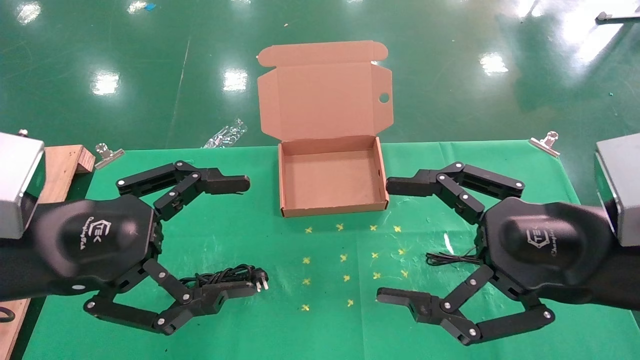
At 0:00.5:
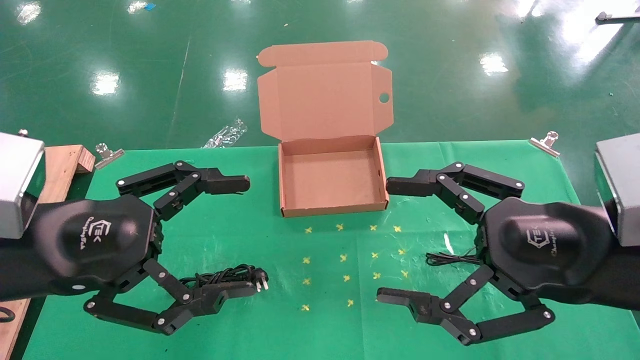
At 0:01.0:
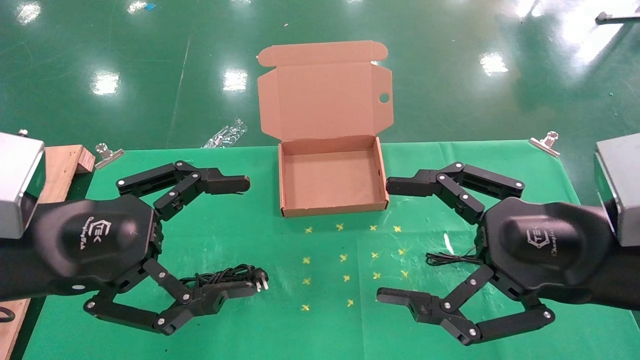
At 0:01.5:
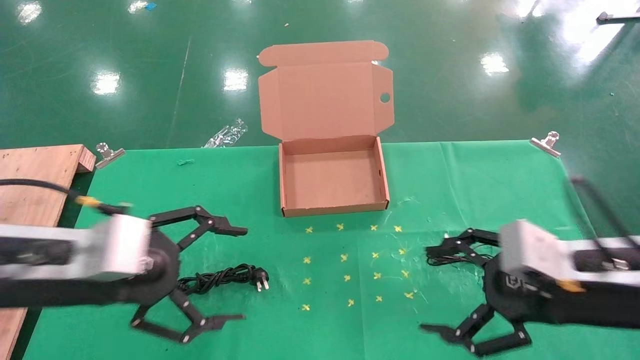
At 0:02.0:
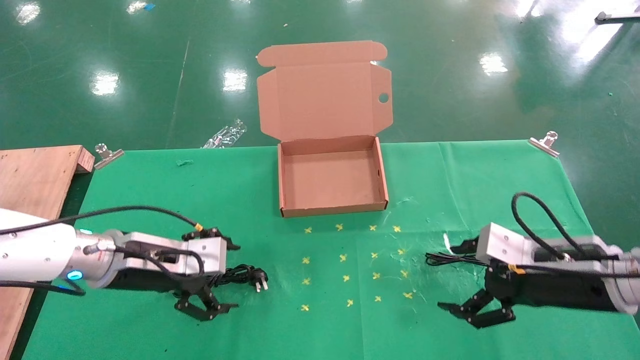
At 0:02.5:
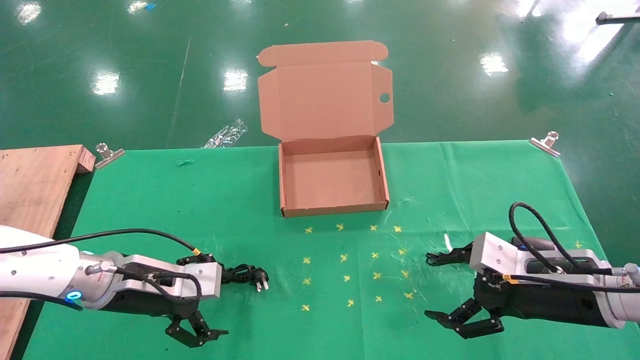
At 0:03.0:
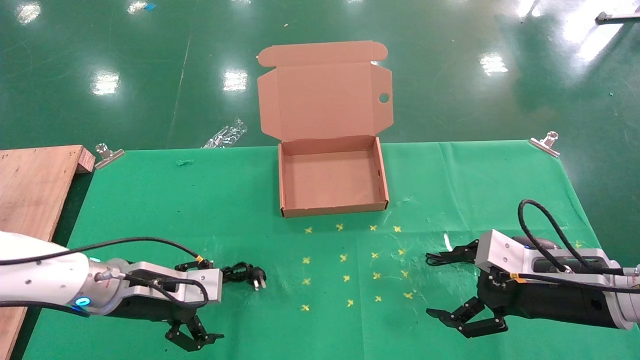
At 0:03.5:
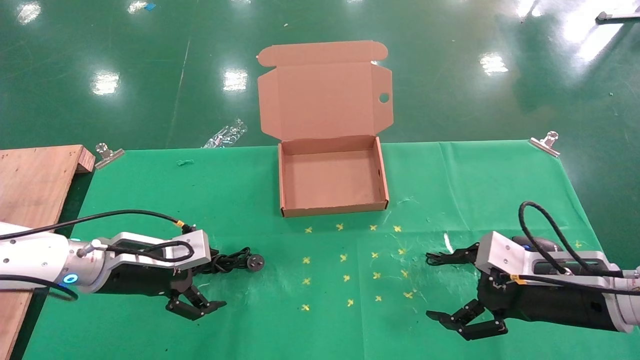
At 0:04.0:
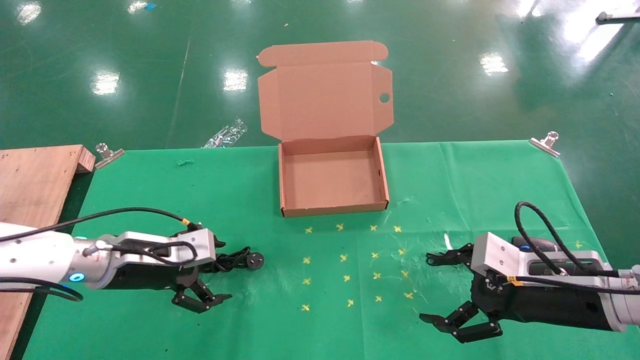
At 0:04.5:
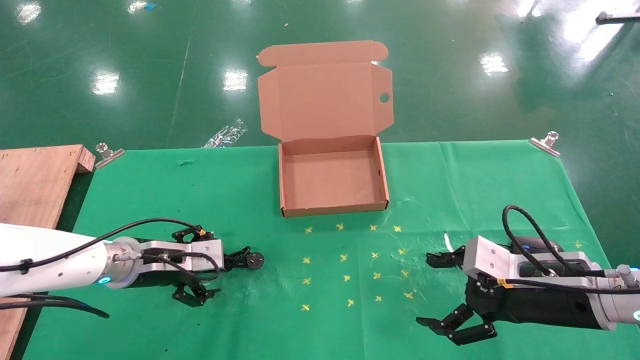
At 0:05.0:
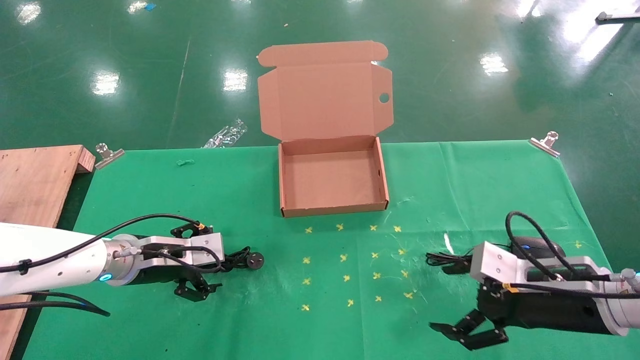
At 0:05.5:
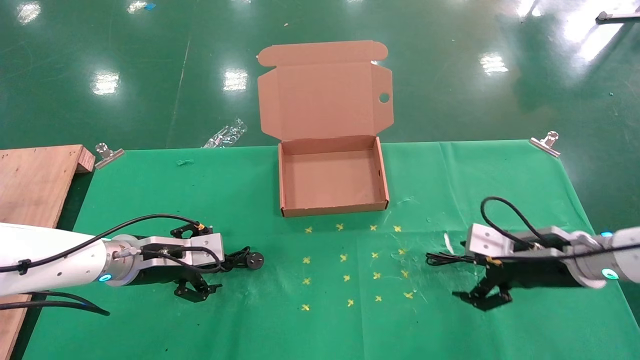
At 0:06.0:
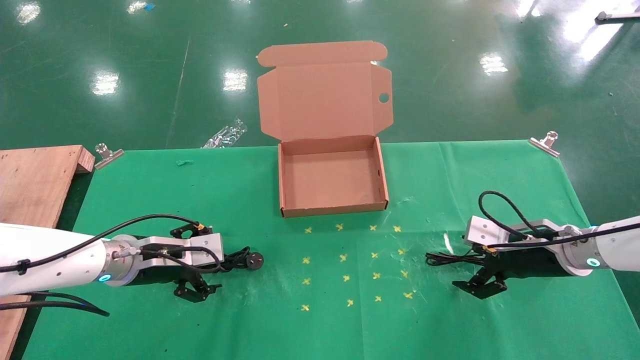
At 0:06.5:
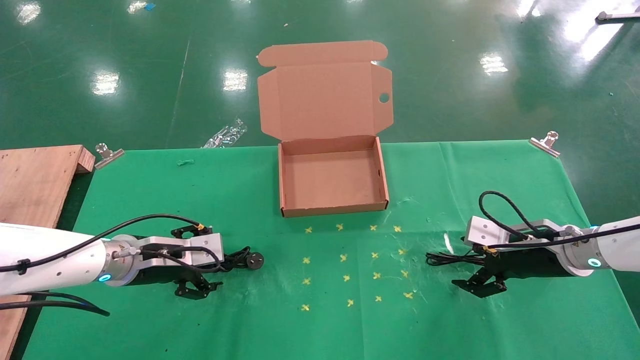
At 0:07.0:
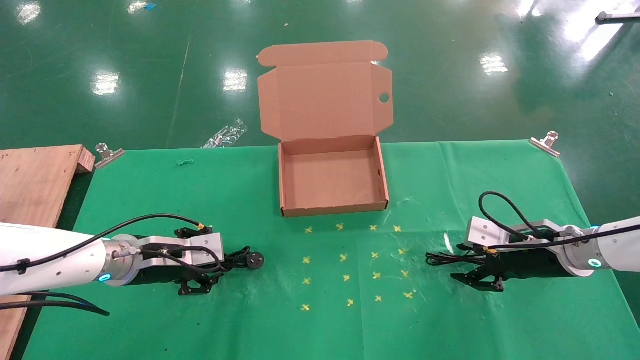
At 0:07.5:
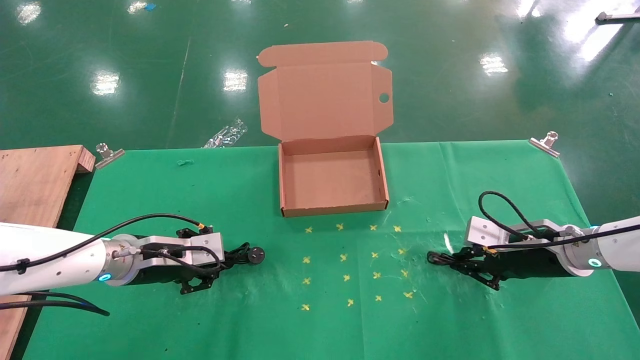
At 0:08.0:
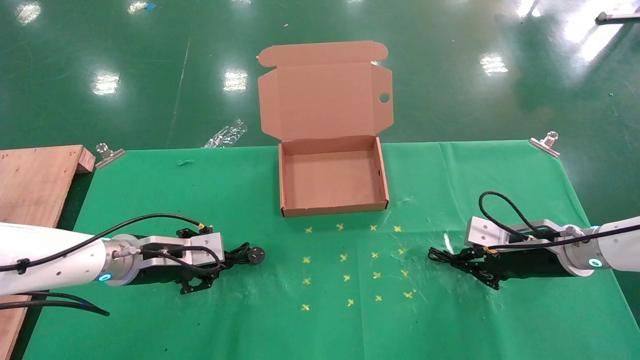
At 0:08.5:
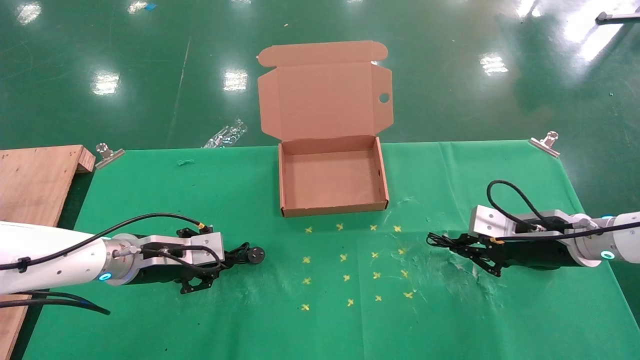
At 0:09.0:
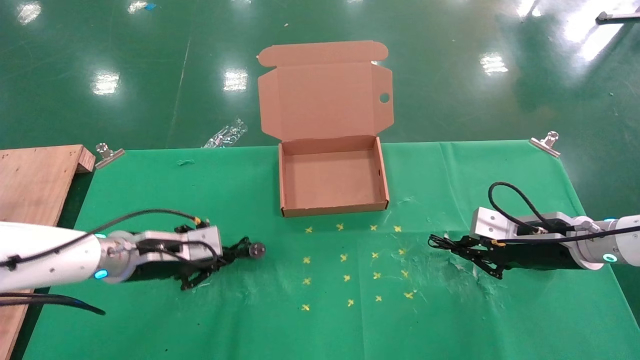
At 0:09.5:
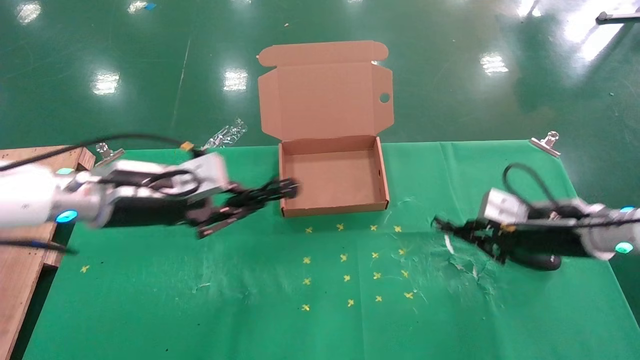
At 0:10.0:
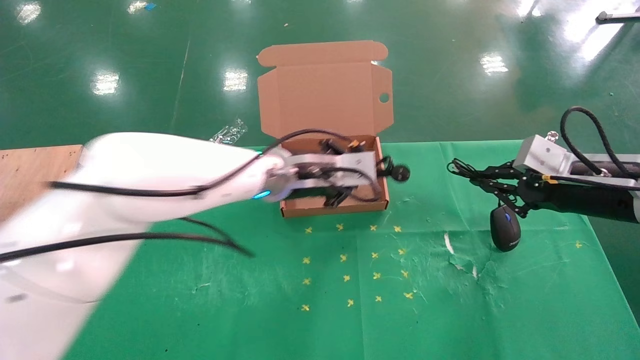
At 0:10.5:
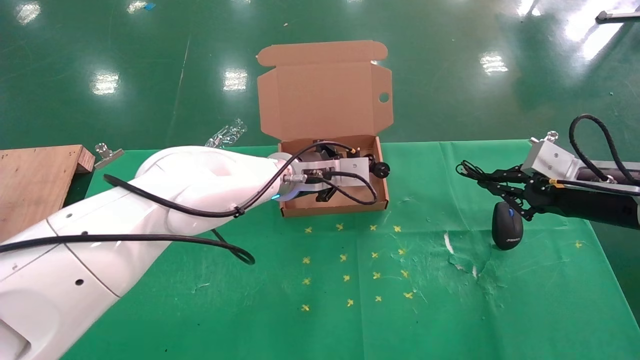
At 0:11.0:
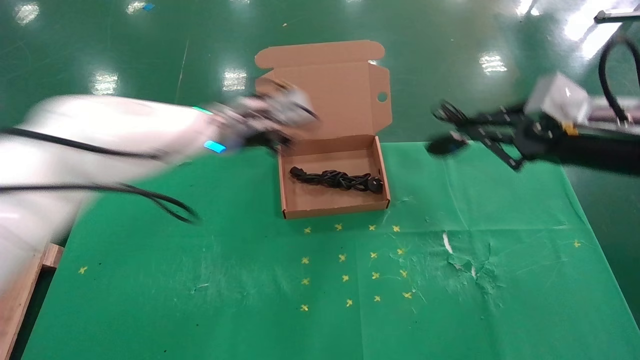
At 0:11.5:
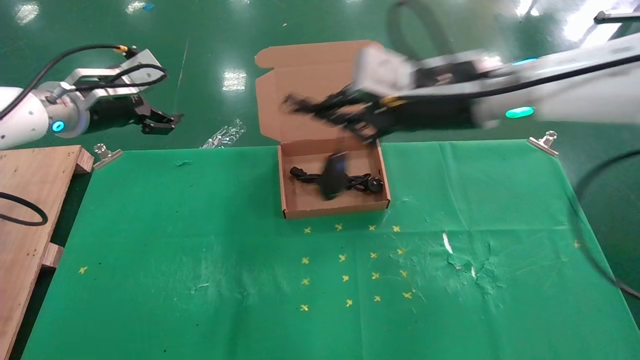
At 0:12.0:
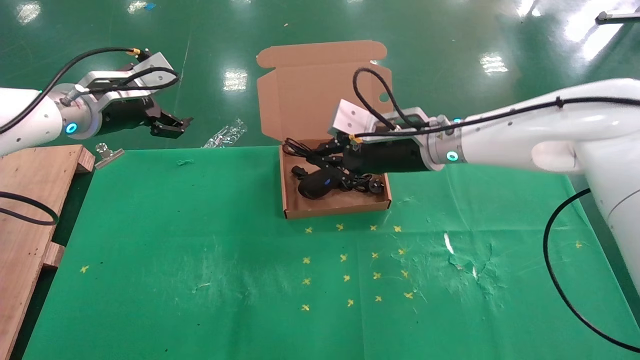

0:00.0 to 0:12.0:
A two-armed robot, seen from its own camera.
Task of the whole recording: grasp data cable left put into box grasp mouse right put into box.
Step, 0:01.5 to 0:07.5: Simultaneously pick up the mouse and power cord from the accessory packaging area.
0:00.0 to 0:02.0: The right gripper travels downward, forward and to the right by about 15 cm, while the left gripper shifts roughly 15 cm forward and downward.
0:02.0 to 0:04.0: The left gripper ends up some 5 cm from where it was.
0:04.0 to 0:06.0: The right gripper heads forward, covering approximately 10 cm.
0:06.0 to 0:08.0: The right gripper closes. Meanwhile the left gripper closes up.
0:08.0 to 0:10.0: The right gripper goes approximately 10 cm upward, while the left gripper goes approximately 25 cm to the right and upward.
0:10.0 to 0:12.0: The grippers both shift to the left by about 25 cm. The left gripper opens its fingers.

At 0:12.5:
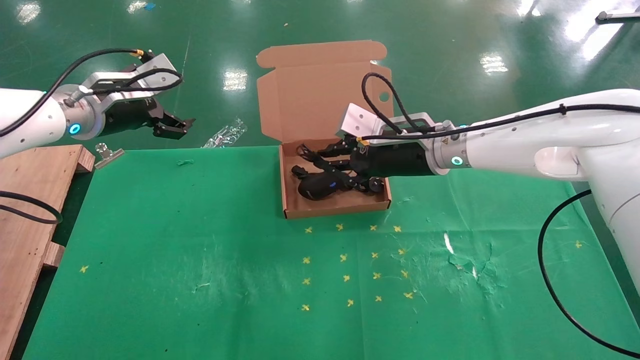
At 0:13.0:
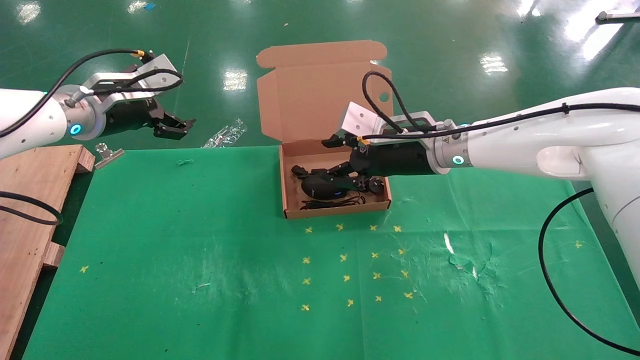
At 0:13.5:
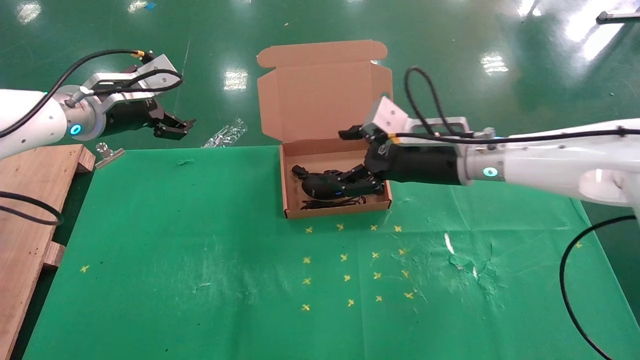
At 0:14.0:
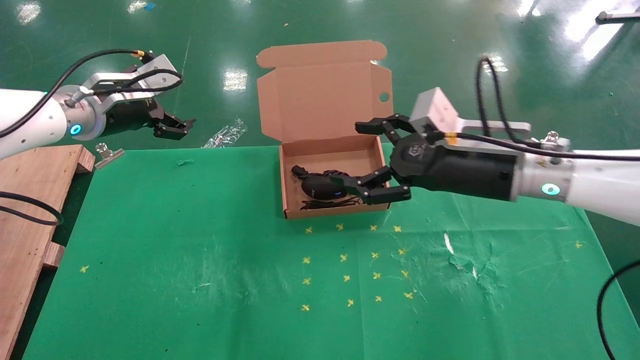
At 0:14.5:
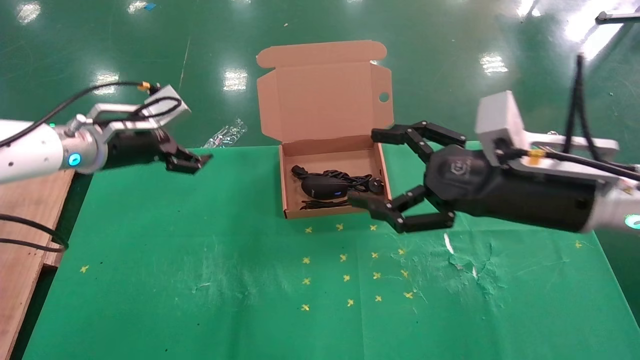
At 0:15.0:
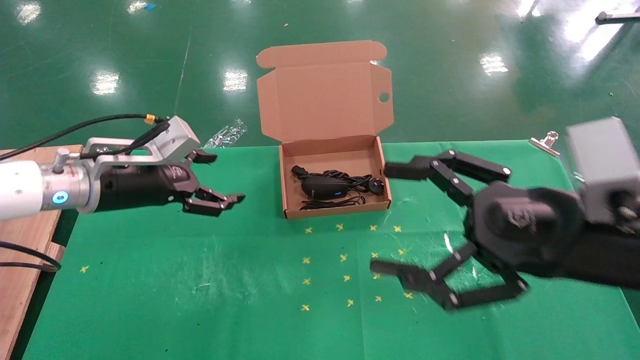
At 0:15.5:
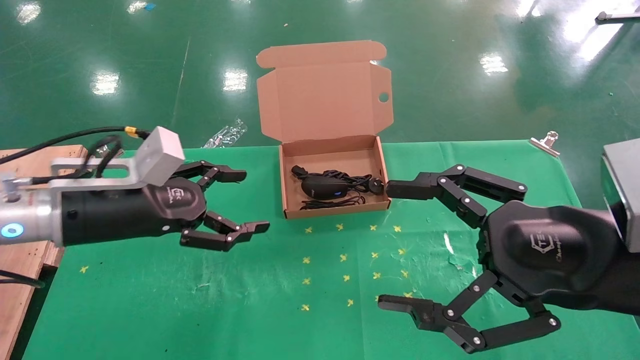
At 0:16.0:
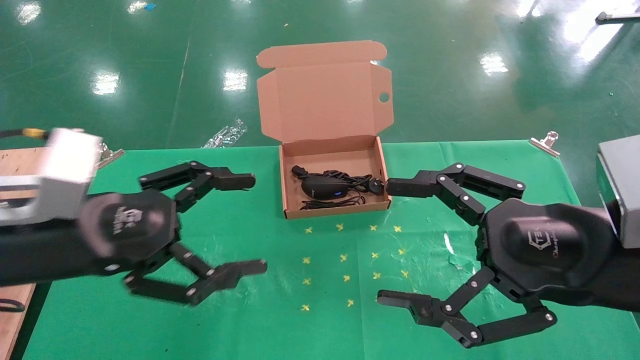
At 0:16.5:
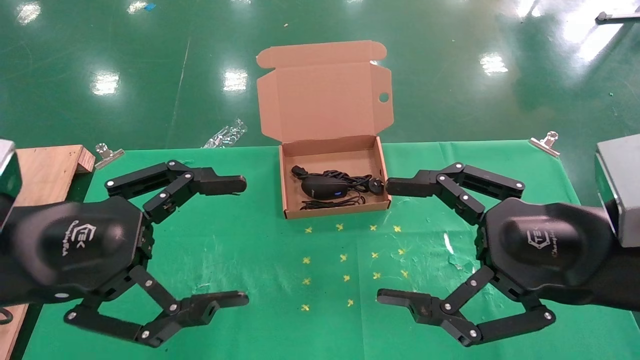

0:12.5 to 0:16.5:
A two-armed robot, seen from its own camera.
Task of the whole recording: grasp data cable left put into box grasp mouse right put into box.
0:12.5 to 0:14.5: The right gripper moves backward and to the right, about 20 cm, and opens; the left gripper ends up about 5 cm from where it was.
0:14.5 to 0:16.5: The left gripper travels backward by approximately 20 cm, while the right gripper travels backward by approximately 10 cm.
